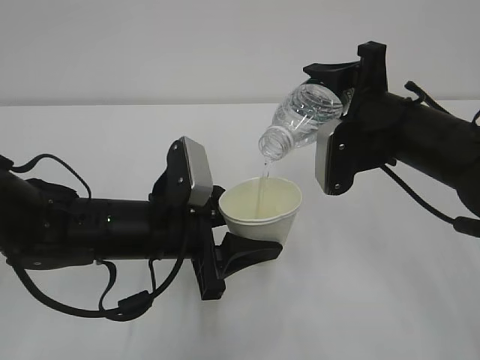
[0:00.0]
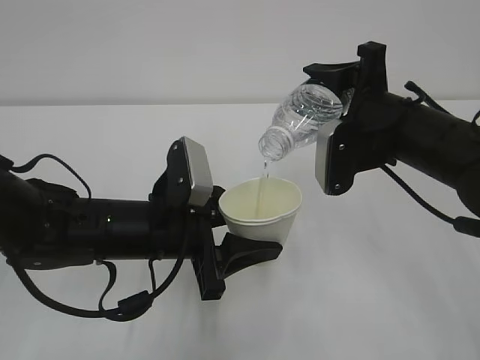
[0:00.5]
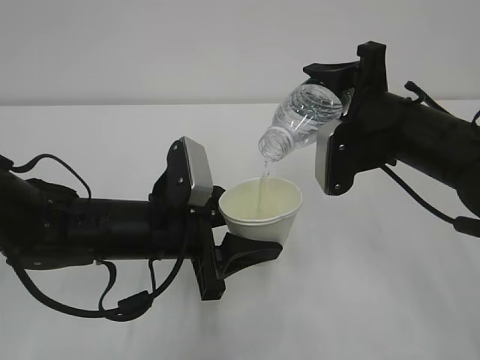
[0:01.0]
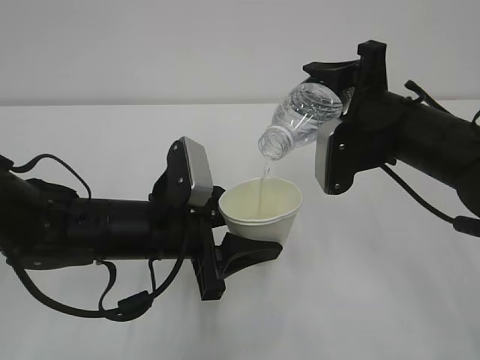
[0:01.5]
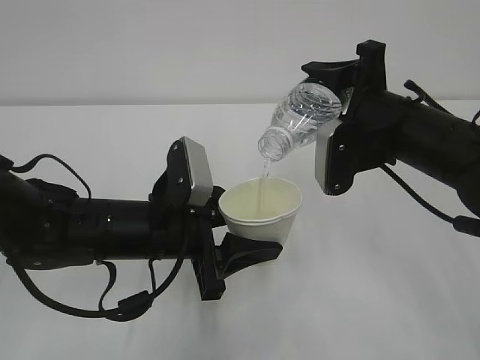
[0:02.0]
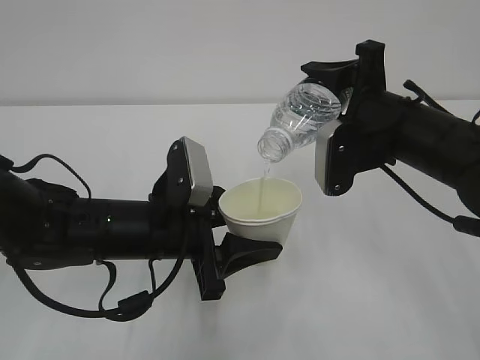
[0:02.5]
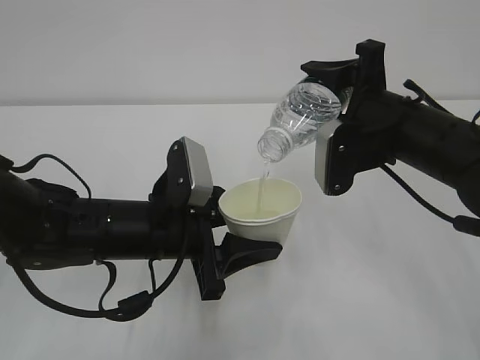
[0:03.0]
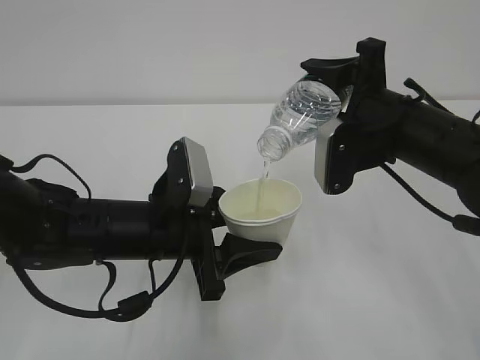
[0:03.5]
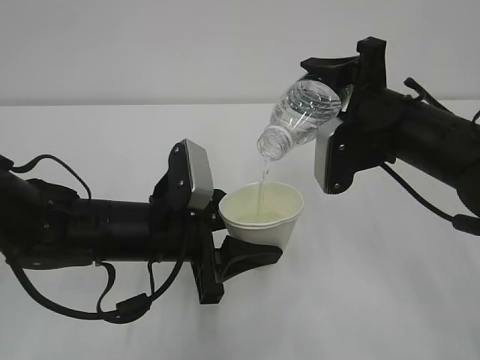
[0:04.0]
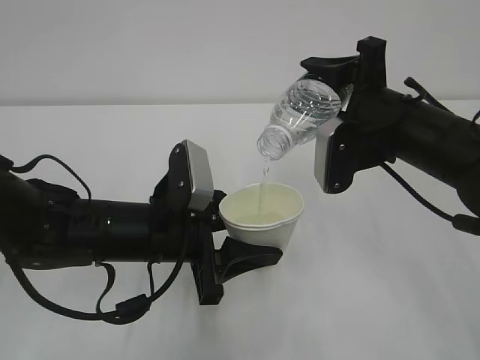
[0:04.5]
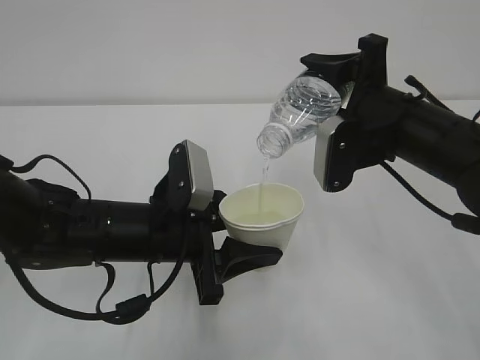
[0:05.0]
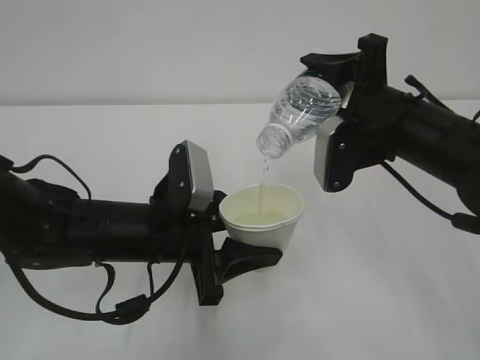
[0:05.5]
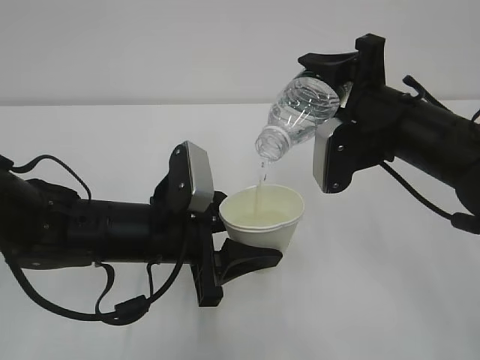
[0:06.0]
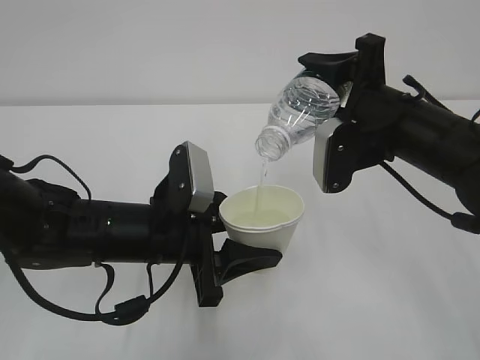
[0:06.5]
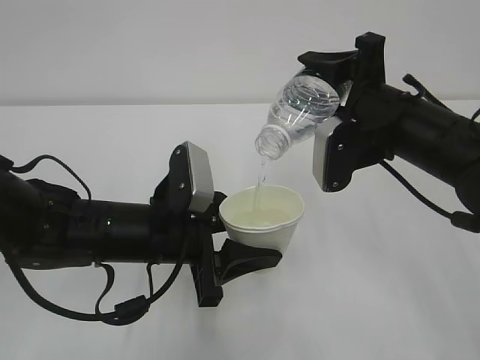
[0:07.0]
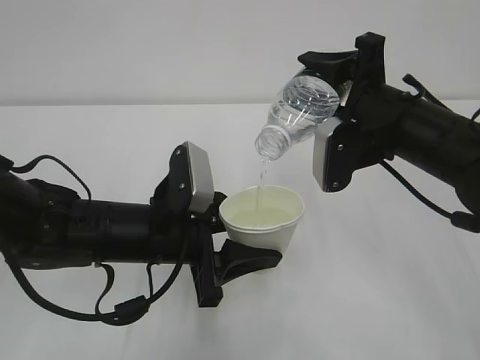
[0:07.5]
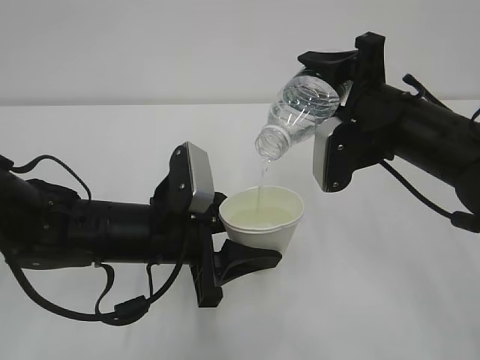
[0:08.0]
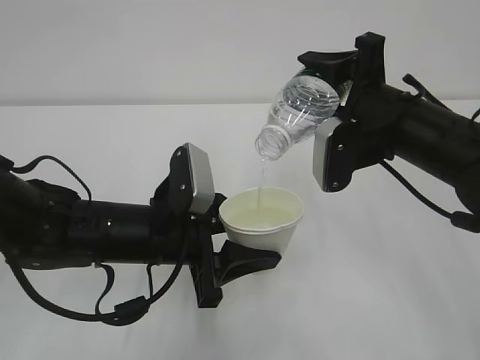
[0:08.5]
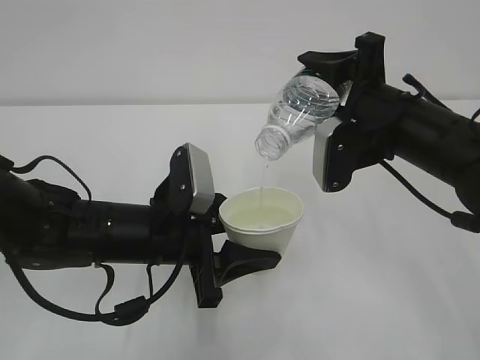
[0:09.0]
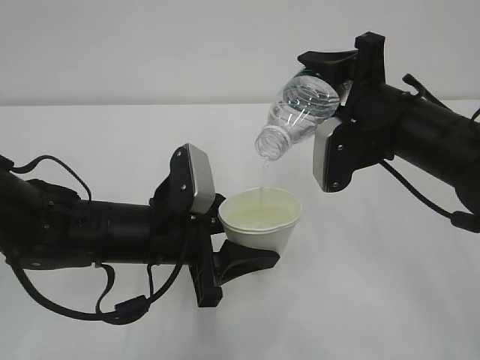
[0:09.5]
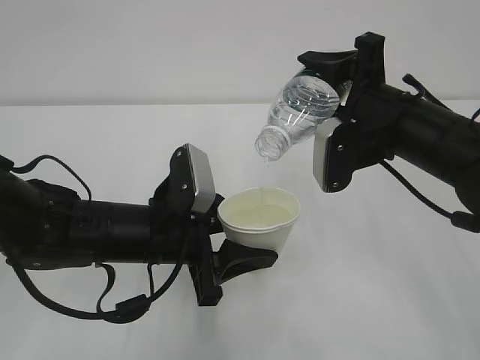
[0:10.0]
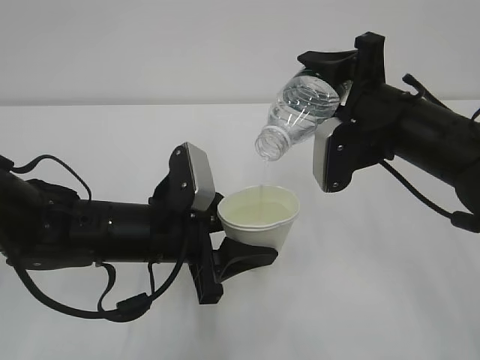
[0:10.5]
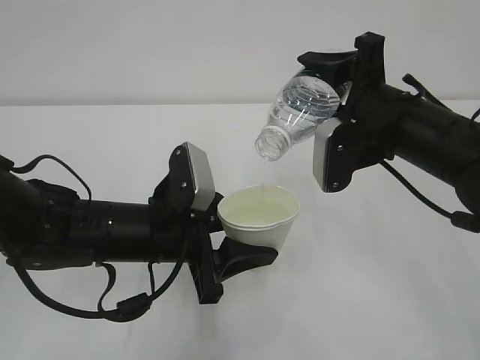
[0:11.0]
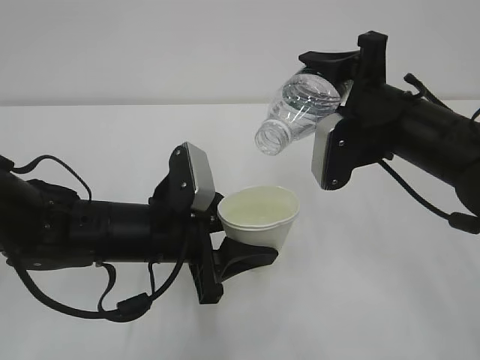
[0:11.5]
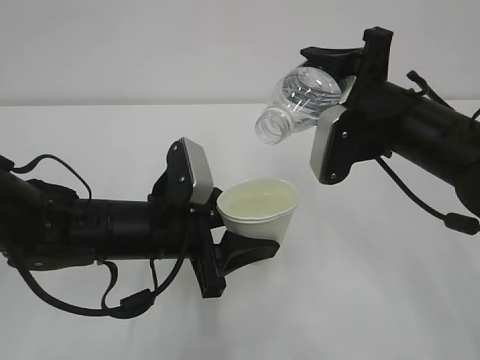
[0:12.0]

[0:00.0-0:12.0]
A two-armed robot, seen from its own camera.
0:00.0 to 0:04.0: Both grippers stay about where they are.
0:04.0 to 0:10.0: The two grippers keep their place.
0:10.0 to 0:12.0: There are only small adjustments of the grippers.

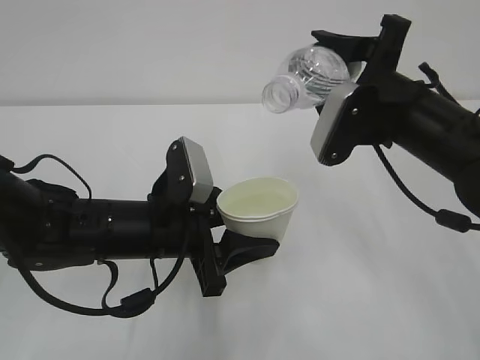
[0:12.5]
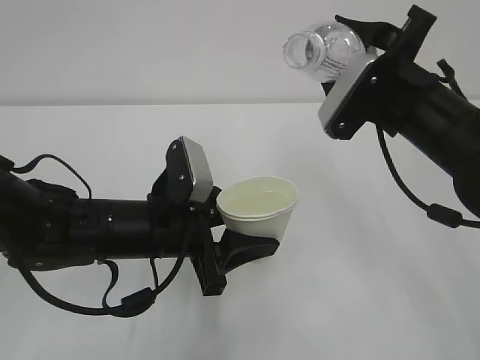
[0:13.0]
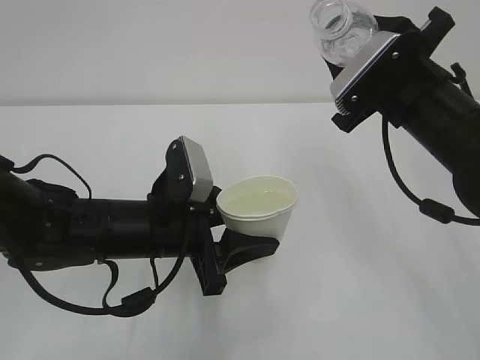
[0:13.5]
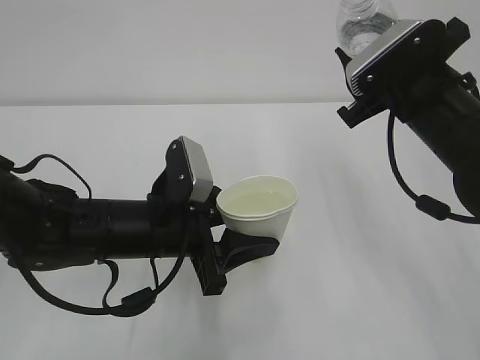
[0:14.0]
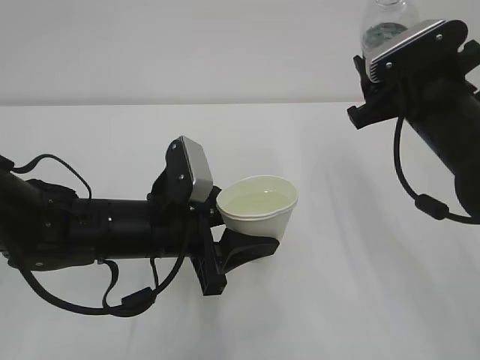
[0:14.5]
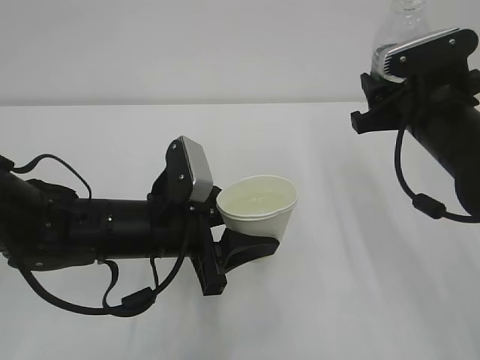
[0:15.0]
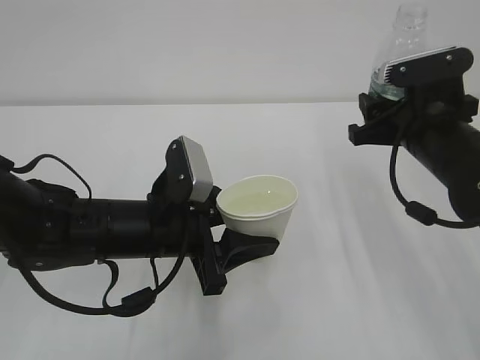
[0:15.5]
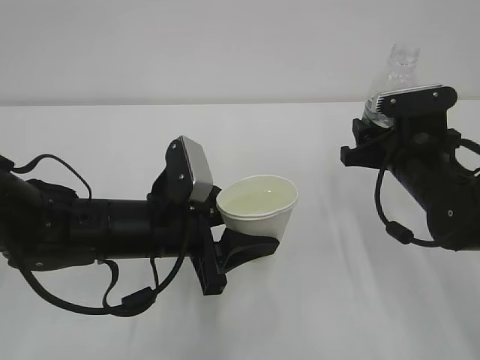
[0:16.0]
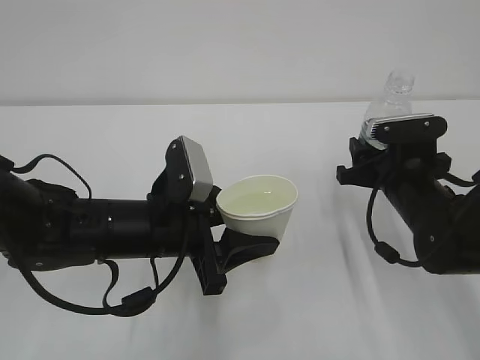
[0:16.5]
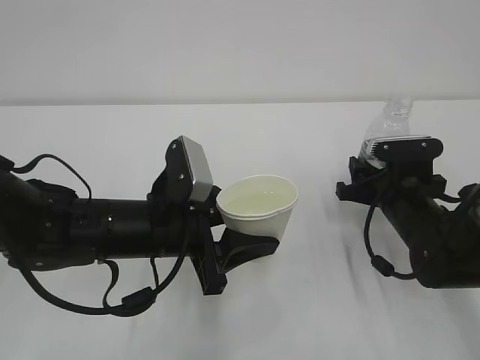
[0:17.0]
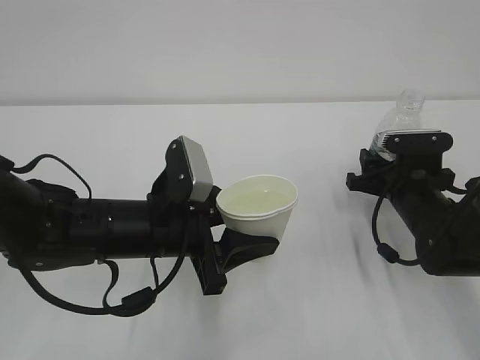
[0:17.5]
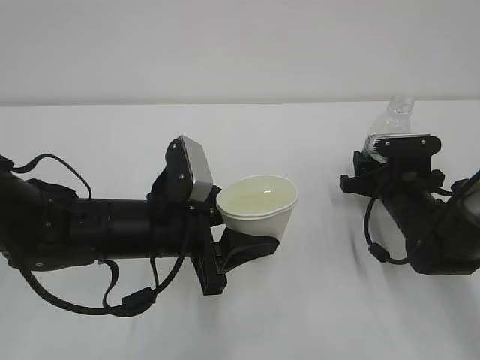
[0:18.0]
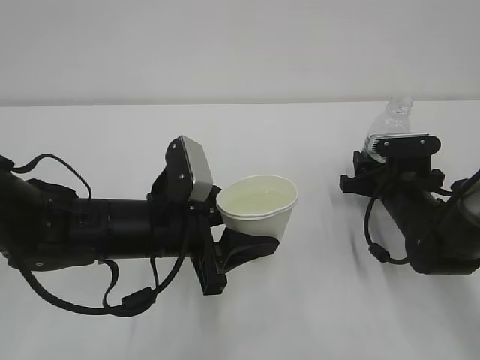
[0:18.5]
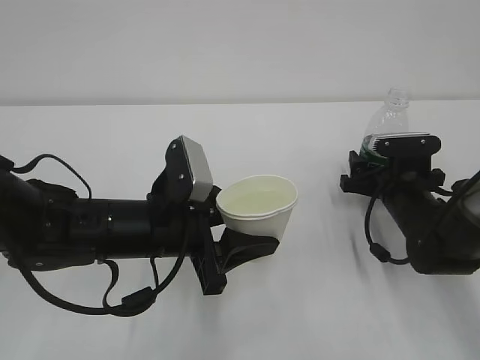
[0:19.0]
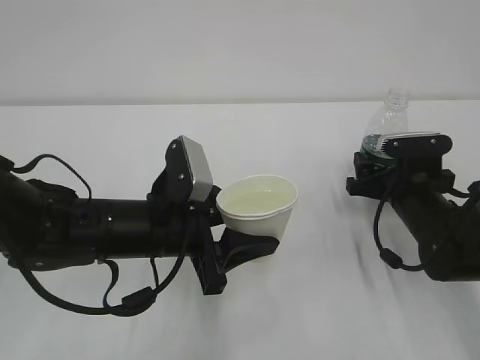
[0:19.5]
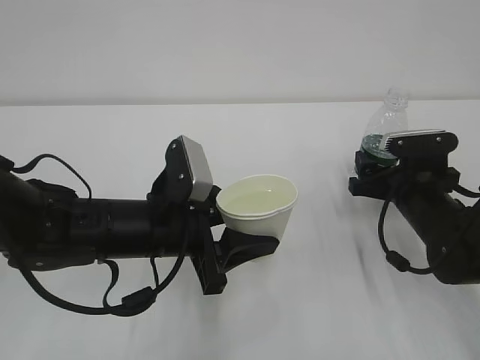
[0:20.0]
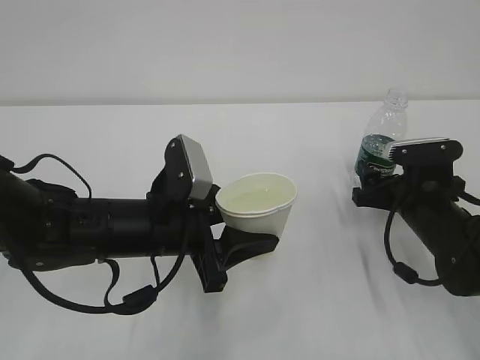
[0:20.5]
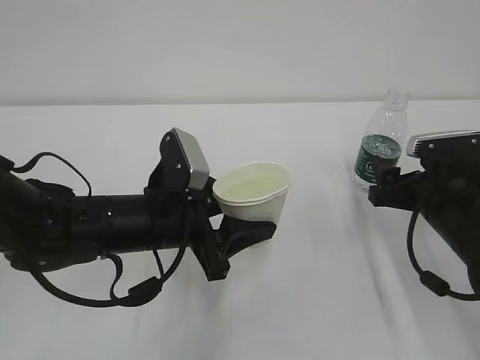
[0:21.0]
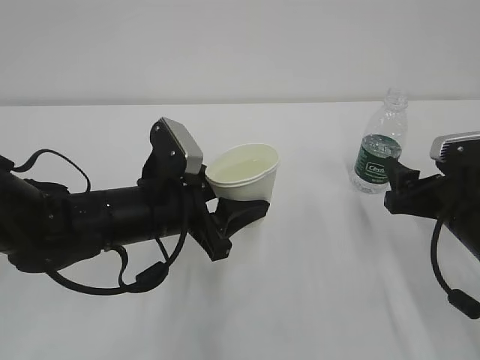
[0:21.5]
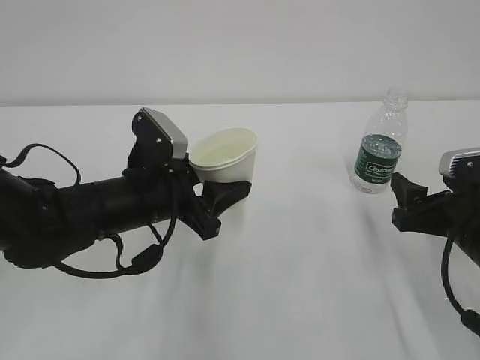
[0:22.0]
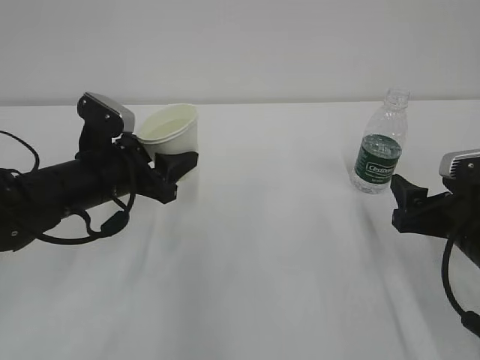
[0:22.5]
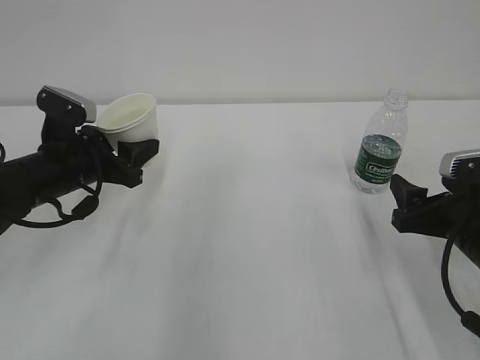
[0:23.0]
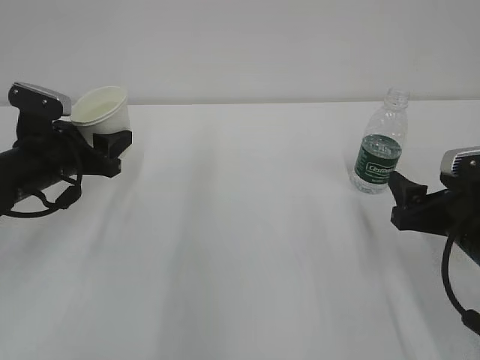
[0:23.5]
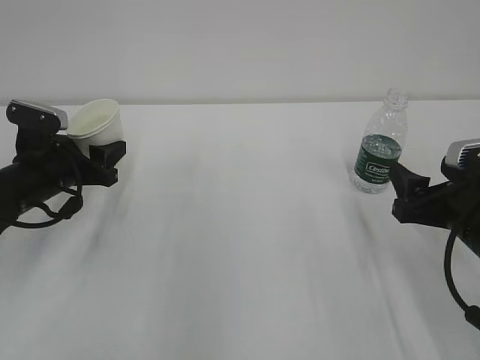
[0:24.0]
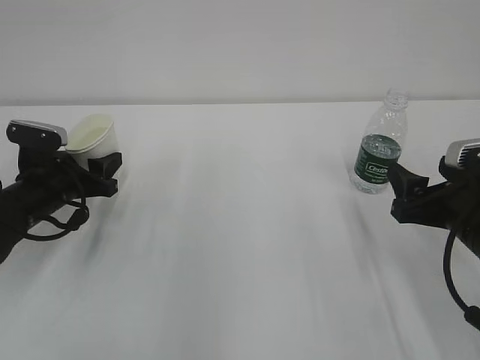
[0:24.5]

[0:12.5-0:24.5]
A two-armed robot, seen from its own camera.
0:14.5 to 0:16.5: The right gripper travels downward by roughly 10 cm.
0:16.5 to 0:18.5: The right gripper moves approximately 5 cm.
0:18.5 to 0:20.5: The right gripper opens its fingers.
0:20.5 to 0:22.5: The right gripper heads backward, covering about 10 cm, while the left gripper moves to the left and forward, about 10 cm.
0:22.5 to 0:24.5: The left gripper goes some 10 cm to the left and downward.

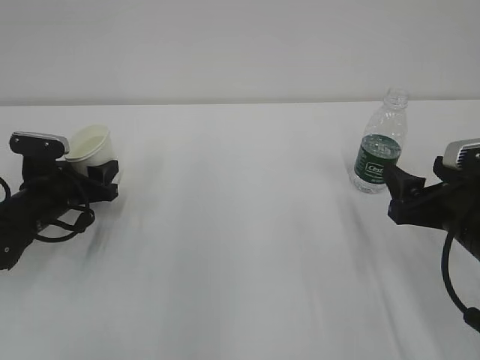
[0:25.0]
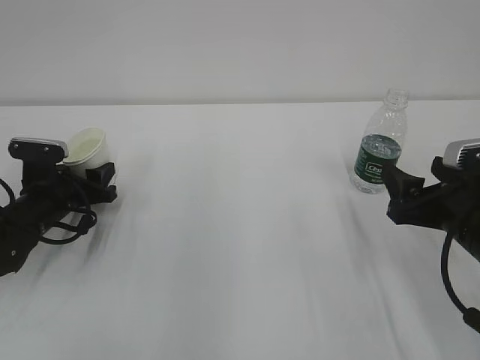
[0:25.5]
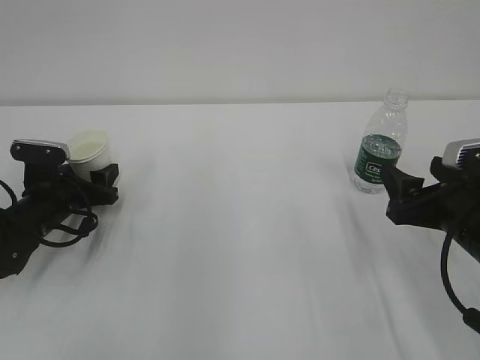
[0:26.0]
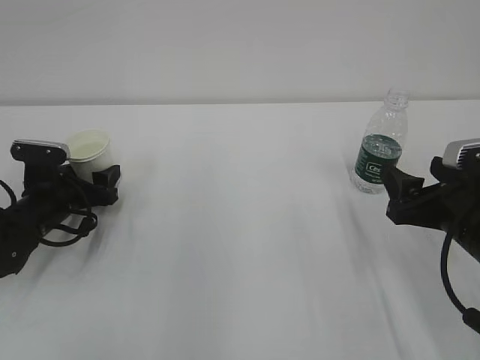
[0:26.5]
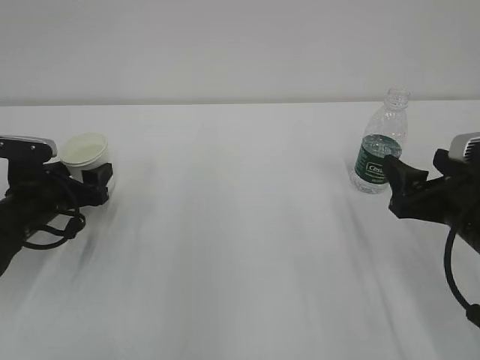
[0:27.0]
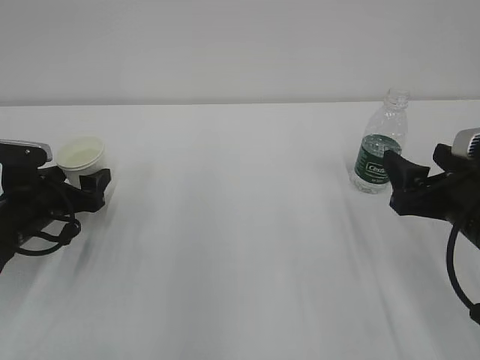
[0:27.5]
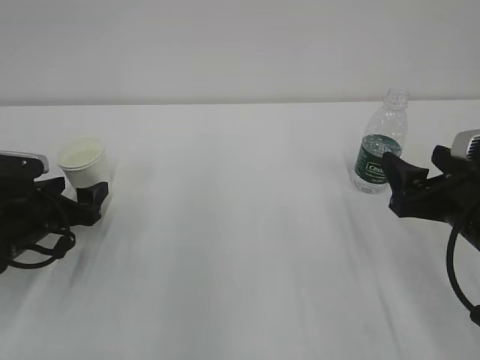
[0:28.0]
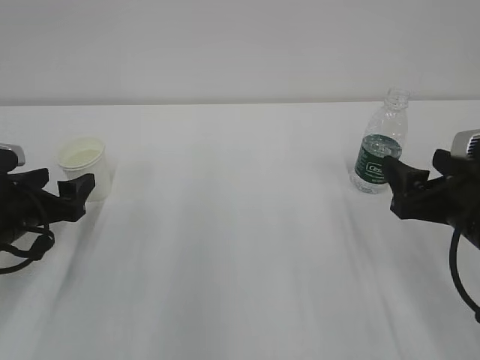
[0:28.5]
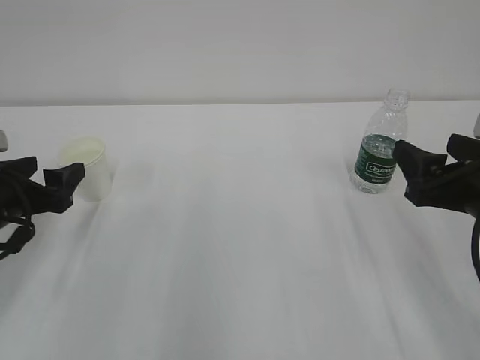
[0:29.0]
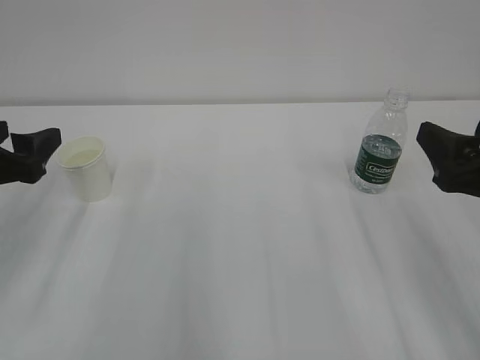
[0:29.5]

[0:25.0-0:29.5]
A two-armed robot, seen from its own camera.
0:25.0 to 0:27.0: The left gripper opens.
0:27.0 to 0:29.5: The left gripper moves upward and backward, some 15 cm. Meanwhile the right gripper travels upward by about 5 cm.
